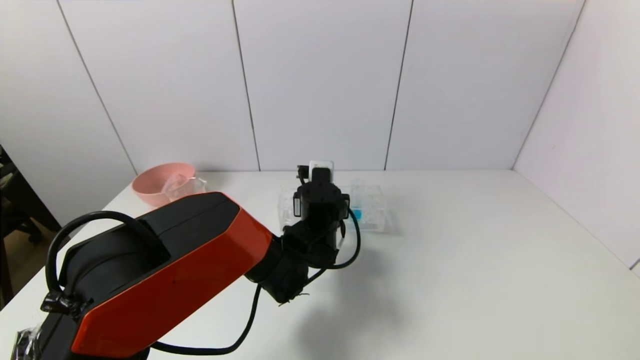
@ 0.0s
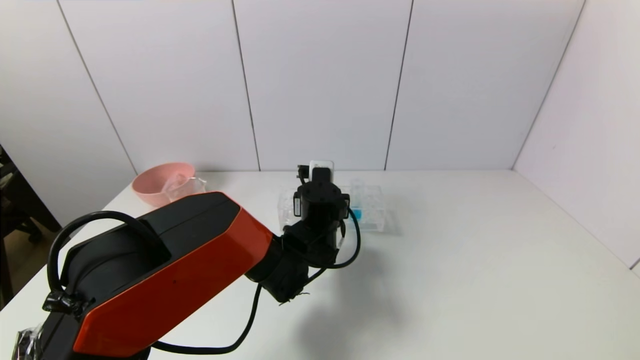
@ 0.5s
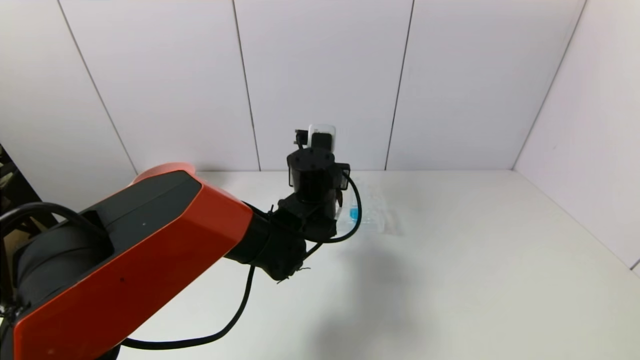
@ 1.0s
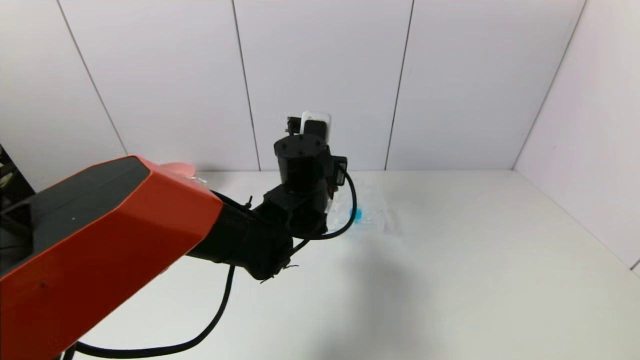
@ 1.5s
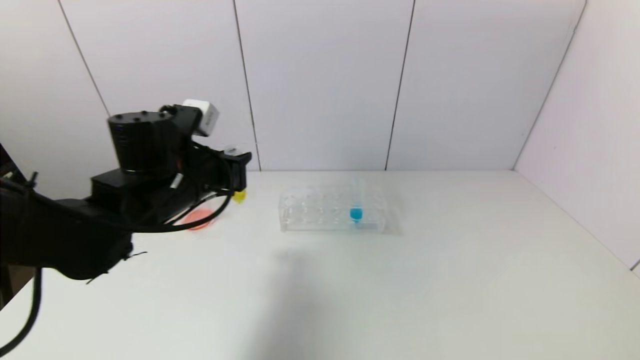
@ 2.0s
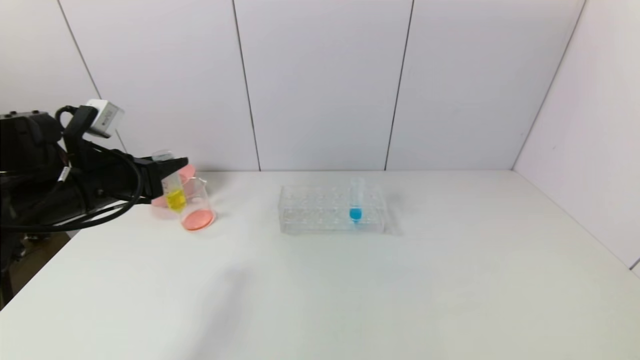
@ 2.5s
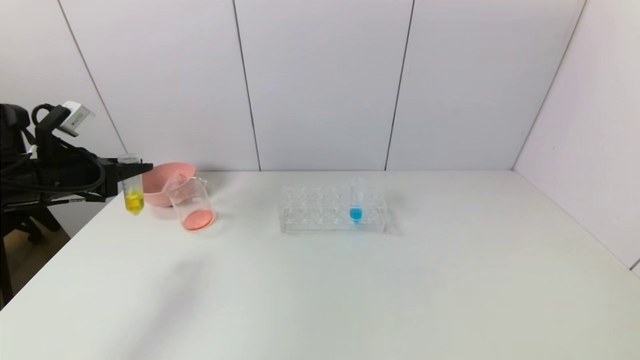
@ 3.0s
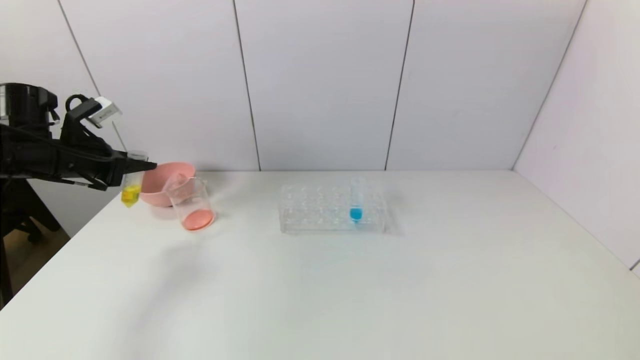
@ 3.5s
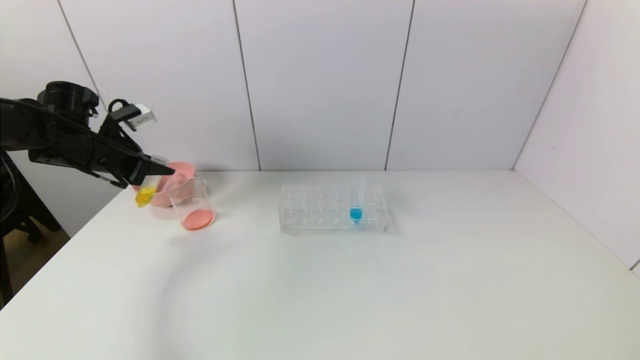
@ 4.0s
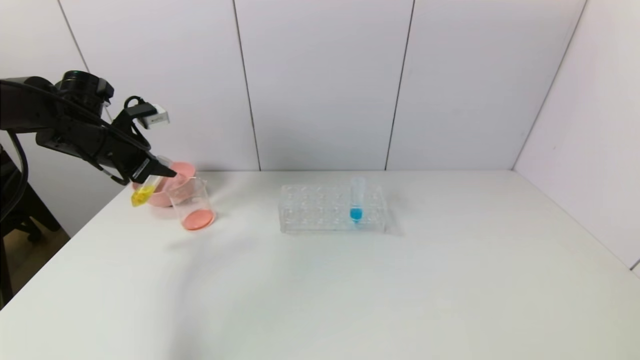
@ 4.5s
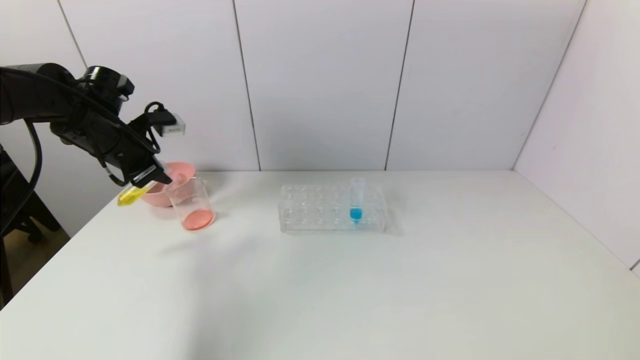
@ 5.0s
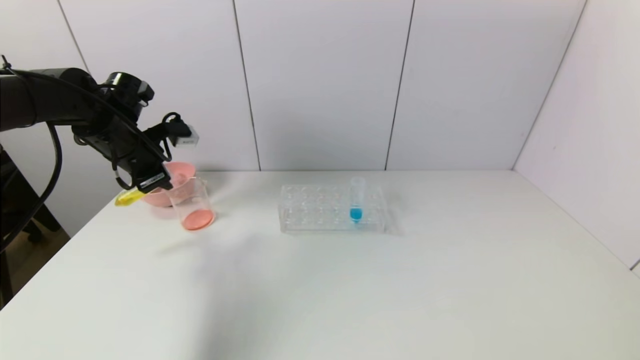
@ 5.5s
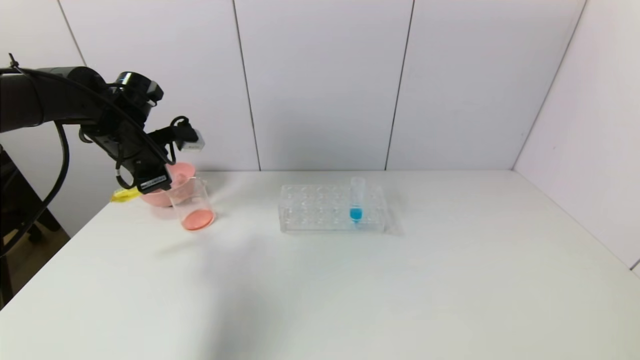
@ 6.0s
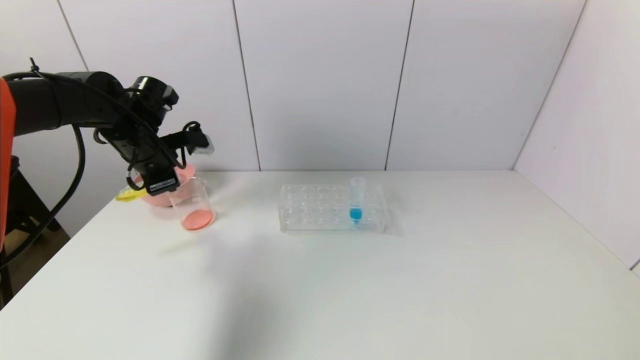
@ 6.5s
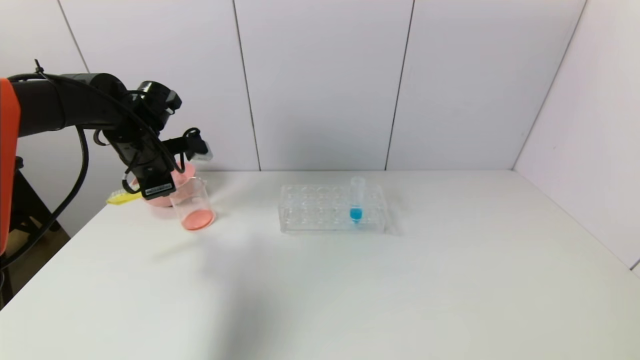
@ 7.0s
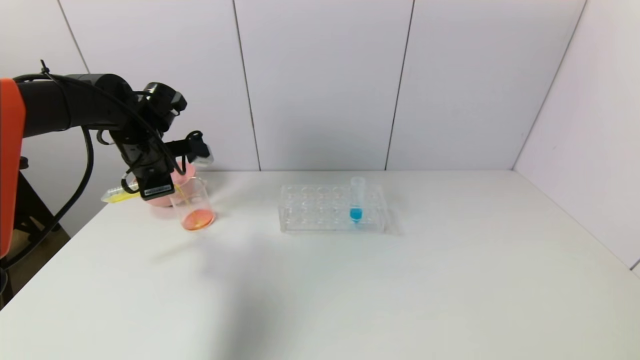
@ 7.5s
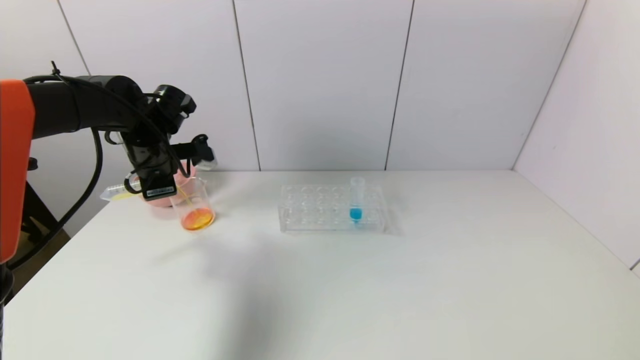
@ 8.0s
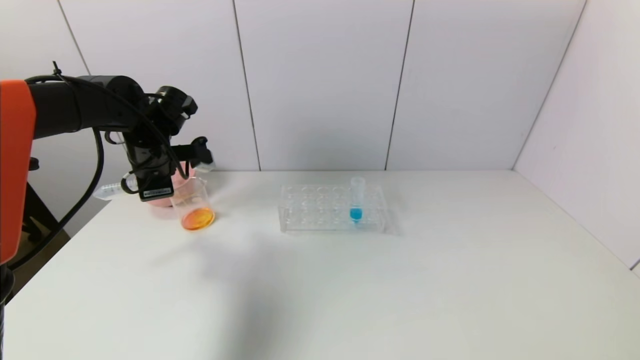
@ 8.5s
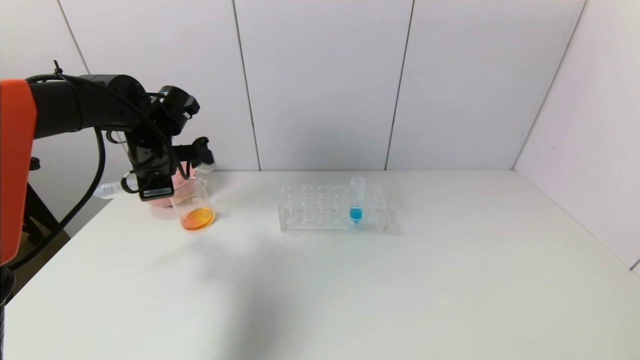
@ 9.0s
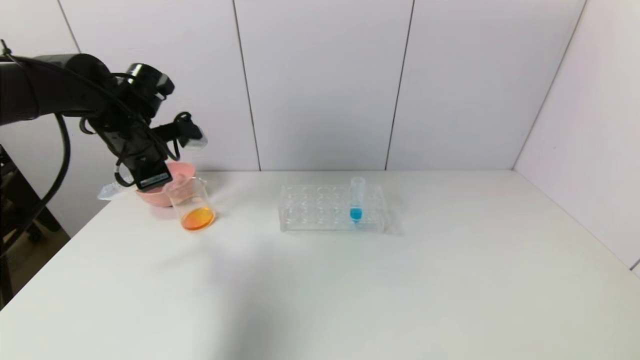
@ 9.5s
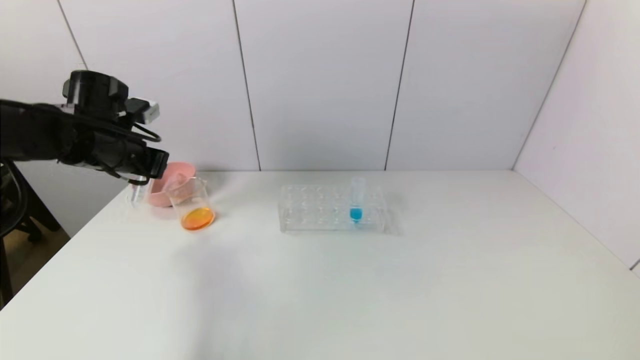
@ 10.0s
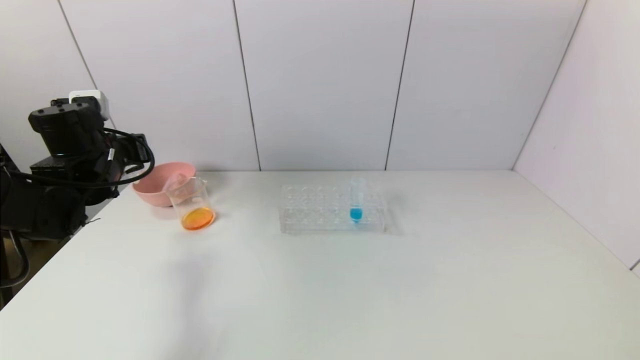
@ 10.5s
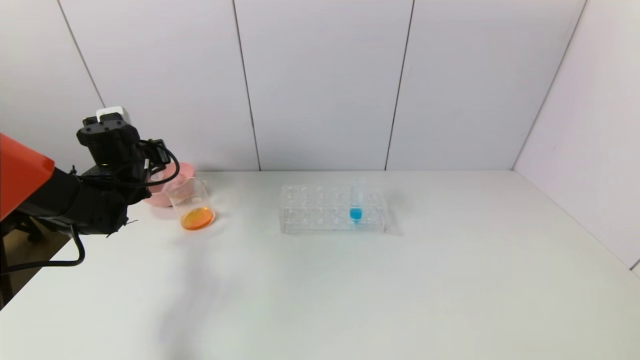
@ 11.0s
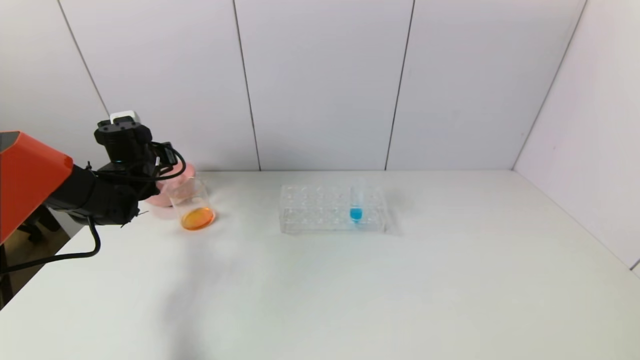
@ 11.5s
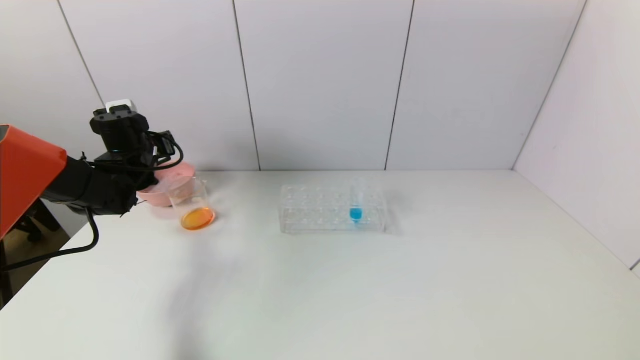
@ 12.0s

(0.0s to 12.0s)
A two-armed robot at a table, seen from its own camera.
Task of the whole recording: pick up the test tube with yellow pigment and the test tube with red pigment by grippers and pour them into the beaker.
Step, 0.5s - 9.0s: Pour the yellow reagent into the graduated cylinder with the left gripper.
Step, 9.5s - 11.5s: Place the test tube into the pink bowl with the left gripper.
0.0s - 2.0s: The left gripper heads to the left and upward, covering roughly 20 cm.
2.0s - 4.0s: The left gripper goes some 20 cm to the left and forward.
4.0s - 6.0s: The left gripper heads to the right, covering about 5 cm.
6.0s - 8.0s: The grippers stay close to where they were, moving slightly.
8.0s - 10.0s: The left gripper changes place by approximately 5 cm.
10.0s - 12.0s: The left gripper is displaced forward and downward by approximately 10 cm, and opens up.

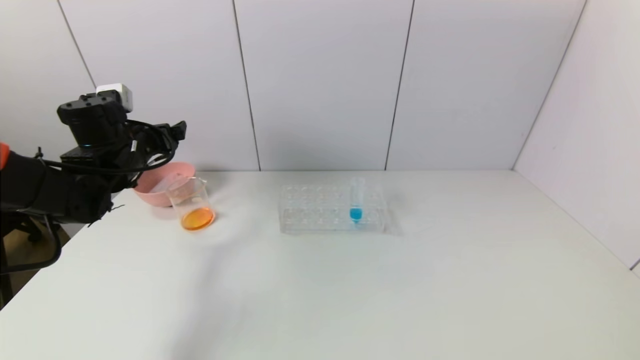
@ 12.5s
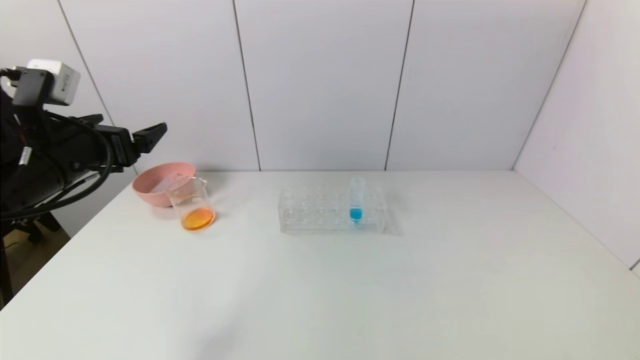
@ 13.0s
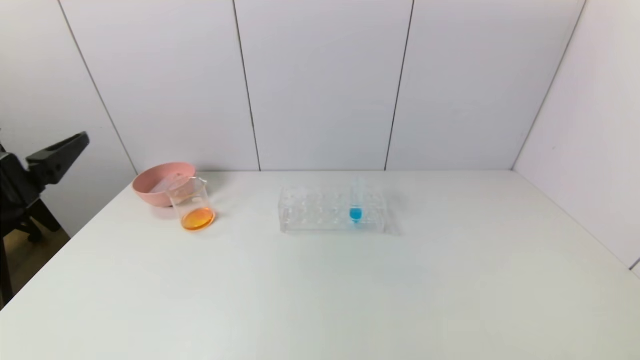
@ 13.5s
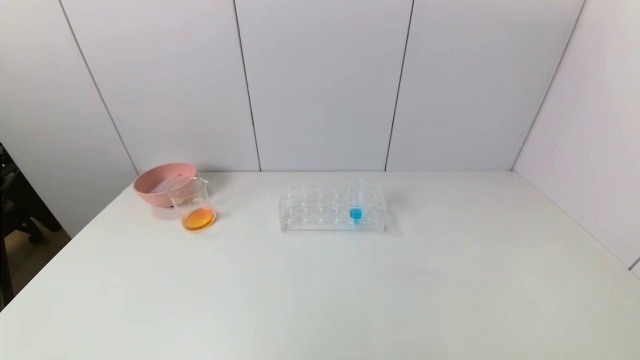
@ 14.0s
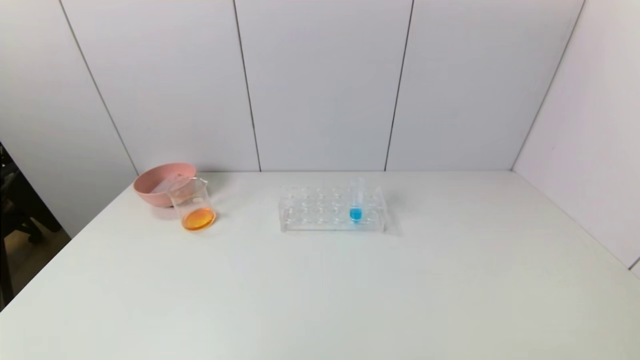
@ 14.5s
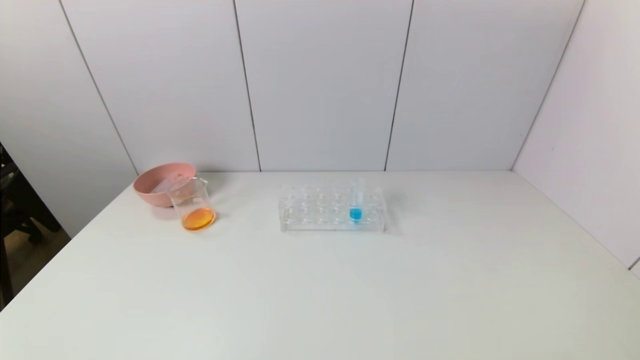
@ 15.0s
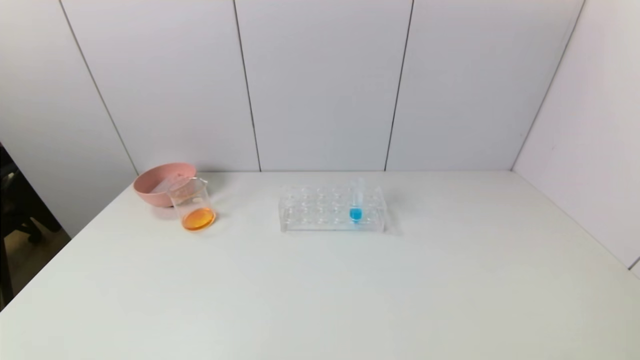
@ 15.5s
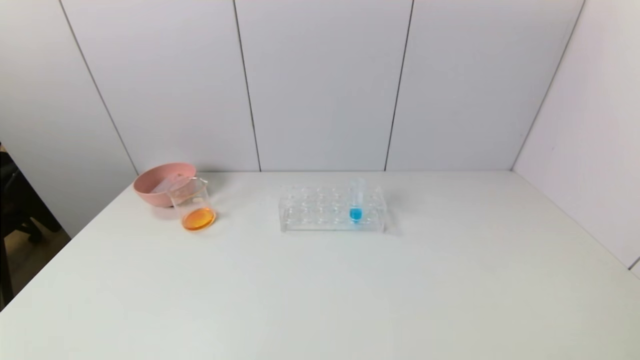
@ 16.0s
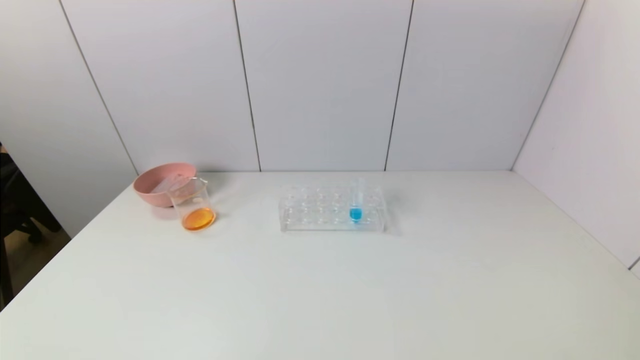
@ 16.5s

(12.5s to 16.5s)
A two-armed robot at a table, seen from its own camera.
Task of the whole recording: pick up the test tube with yellow pigment and the test tube with red pigment by grippers and pour them into the beaker.
12.5s - 14.5s: The left gripper moves backward, roughly 40 cm.
